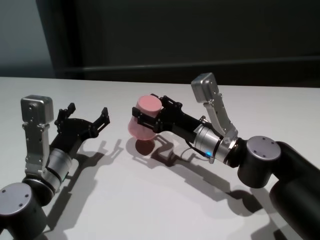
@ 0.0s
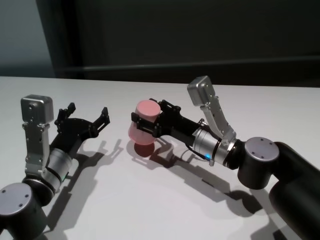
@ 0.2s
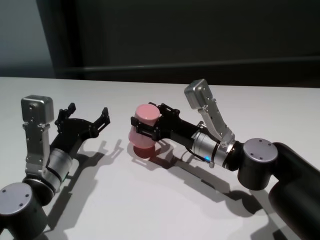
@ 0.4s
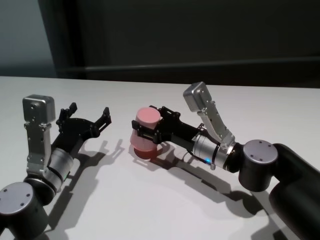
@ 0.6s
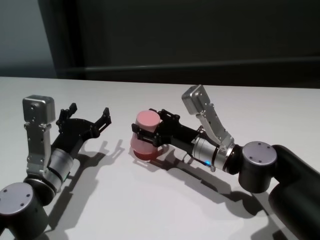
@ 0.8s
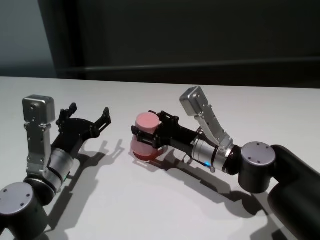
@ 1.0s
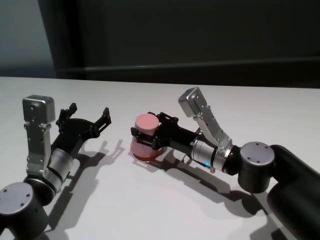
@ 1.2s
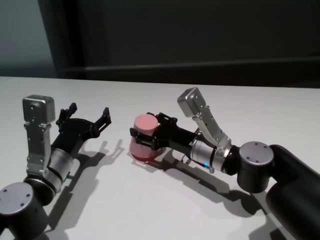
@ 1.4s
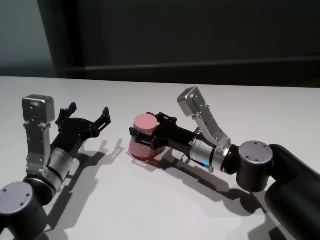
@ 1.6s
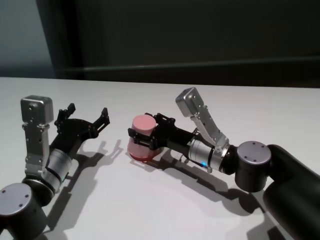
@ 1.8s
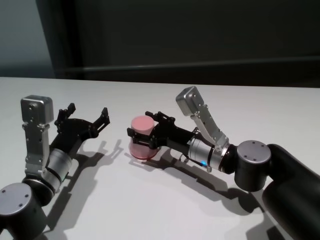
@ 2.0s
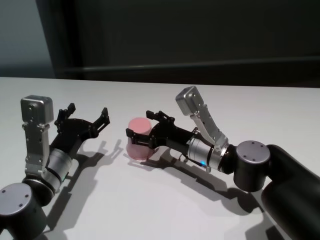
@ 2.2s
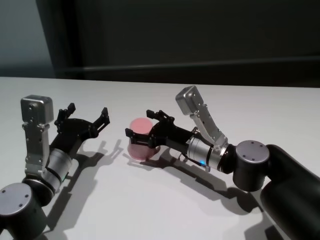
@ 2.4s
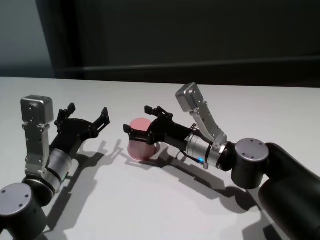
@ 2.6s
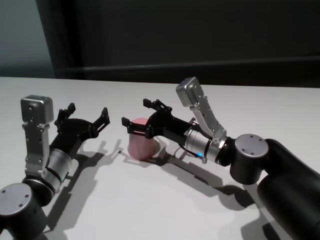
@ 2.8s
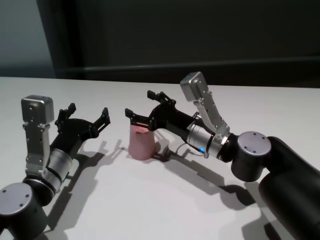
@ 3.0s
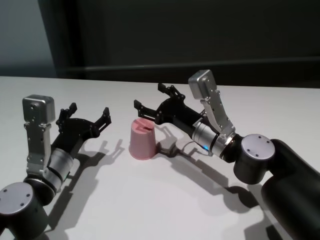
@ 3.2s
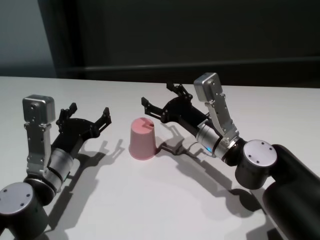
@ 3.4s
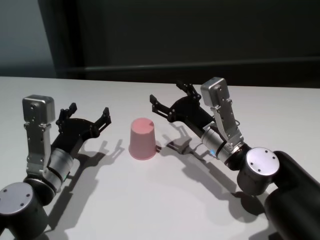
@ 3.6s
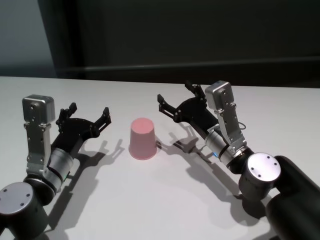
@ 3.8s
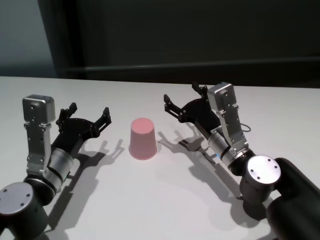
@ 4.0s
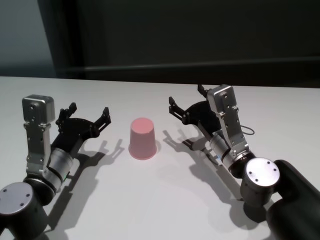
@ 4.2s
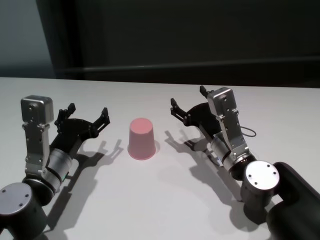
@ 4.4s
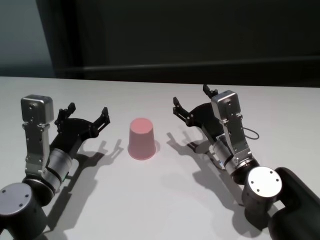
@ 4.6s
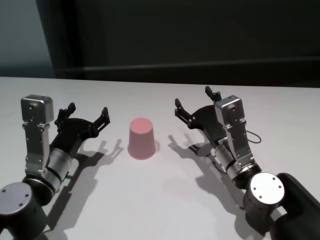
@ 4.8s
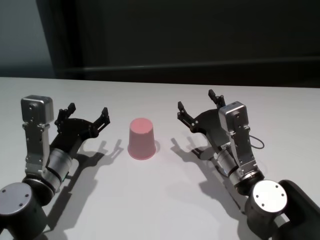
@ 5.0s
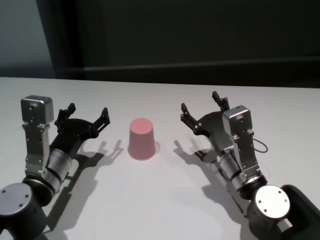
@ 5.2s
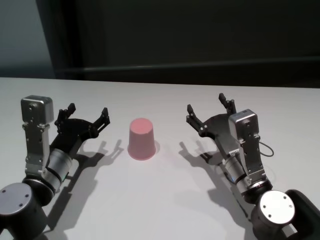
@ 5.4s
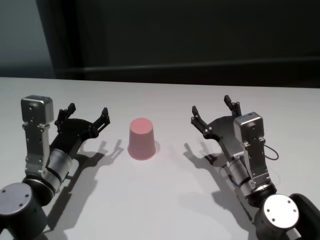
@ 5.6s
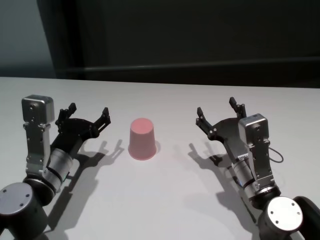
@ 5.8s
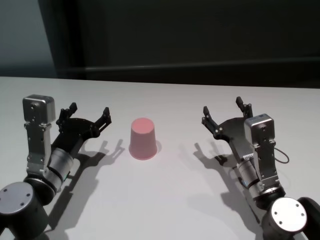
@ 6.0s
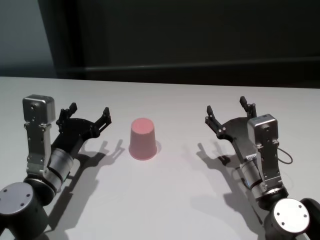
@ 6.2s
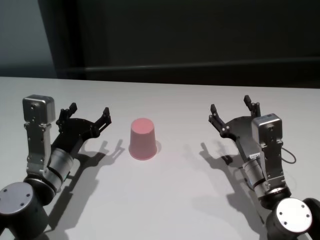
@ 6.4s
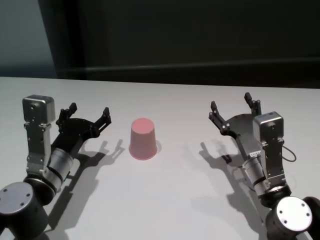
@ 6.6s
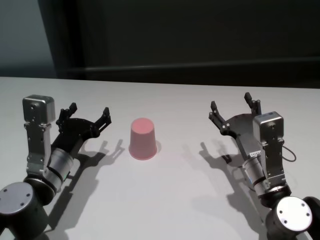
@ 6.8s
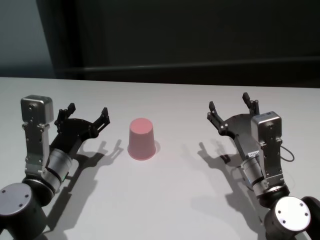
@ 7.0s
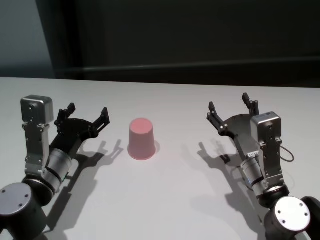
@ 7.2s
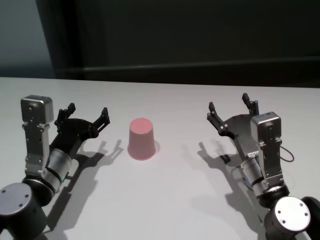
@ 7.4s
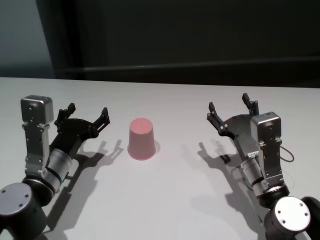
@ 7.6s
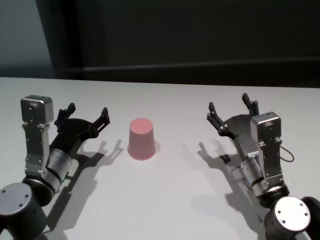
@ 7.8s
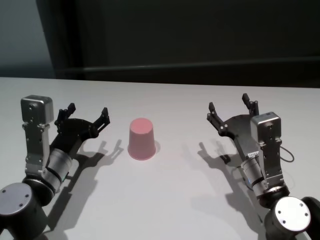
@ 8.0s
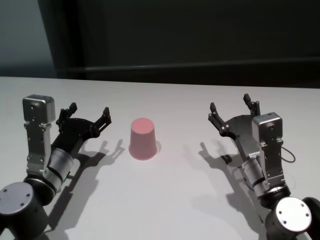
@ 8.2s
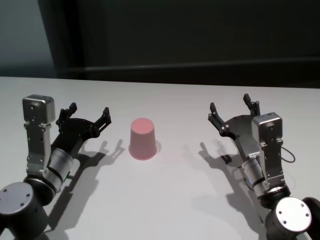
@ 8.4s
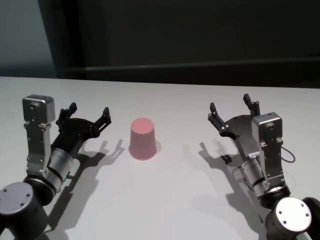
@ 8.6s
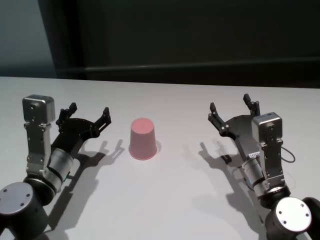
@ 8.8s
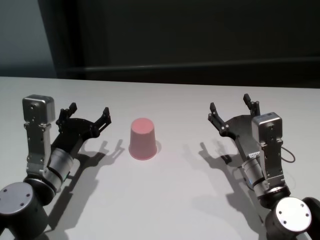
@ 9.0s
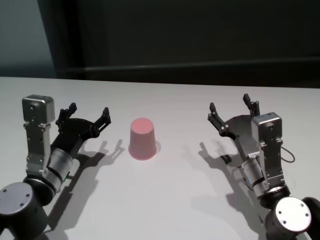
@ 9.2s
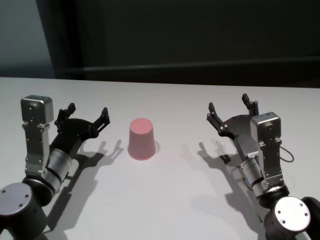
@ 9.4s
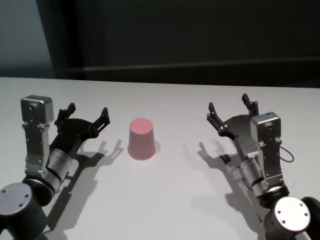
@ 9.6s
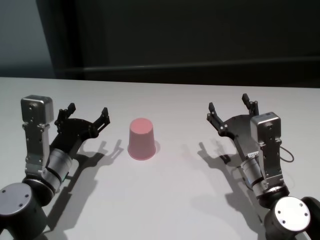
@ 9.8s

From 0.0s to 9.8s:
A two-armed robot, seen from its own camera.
Task of the whole recording: On the white table pick up the cup with one hand and transfer it to the other hand before turning it over.
Step, from 0.0s to 2.6s: Place the cup on the table with right gripper.
